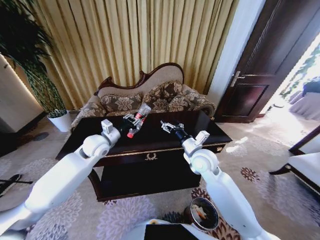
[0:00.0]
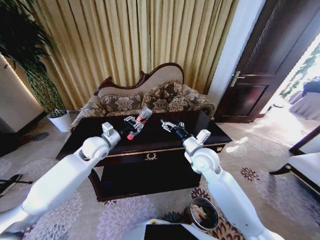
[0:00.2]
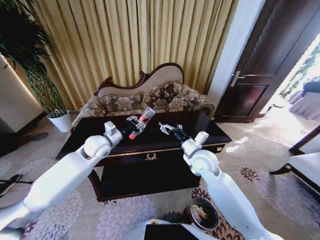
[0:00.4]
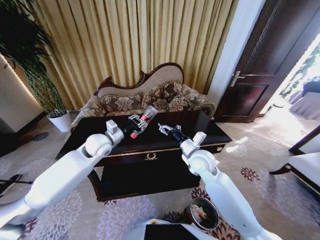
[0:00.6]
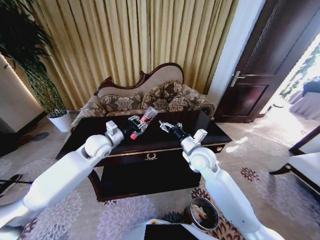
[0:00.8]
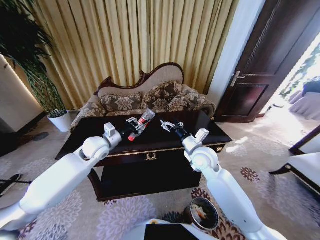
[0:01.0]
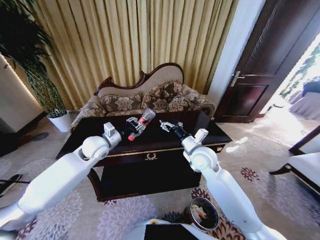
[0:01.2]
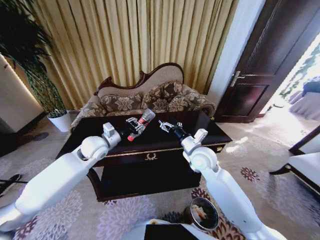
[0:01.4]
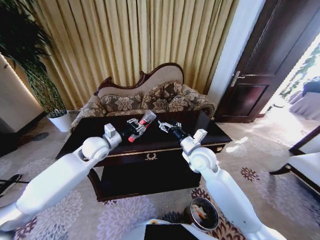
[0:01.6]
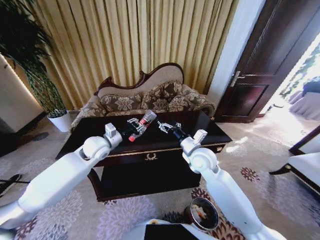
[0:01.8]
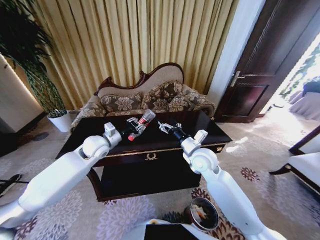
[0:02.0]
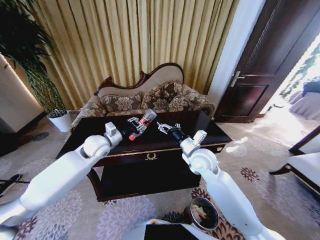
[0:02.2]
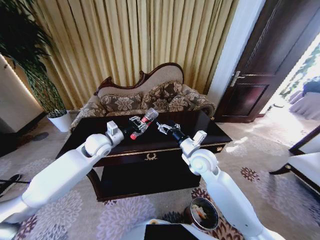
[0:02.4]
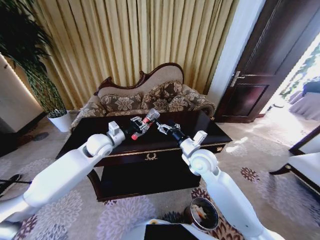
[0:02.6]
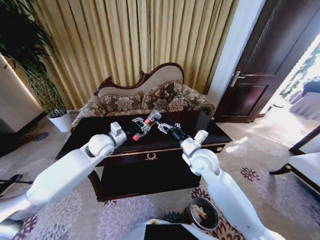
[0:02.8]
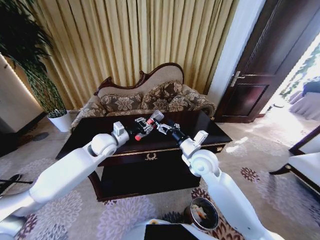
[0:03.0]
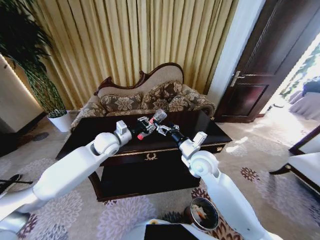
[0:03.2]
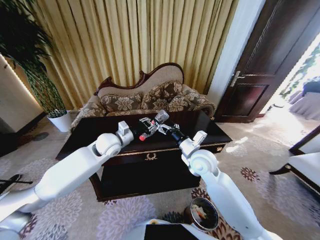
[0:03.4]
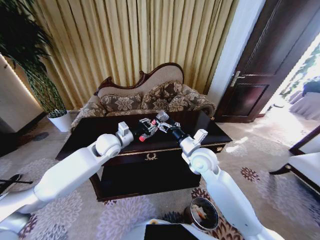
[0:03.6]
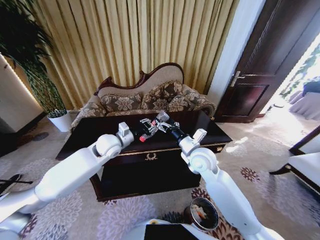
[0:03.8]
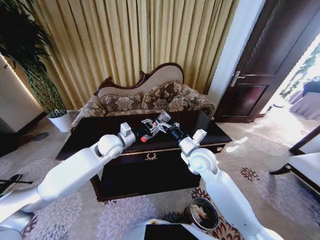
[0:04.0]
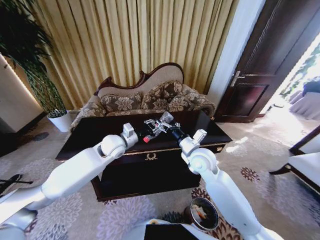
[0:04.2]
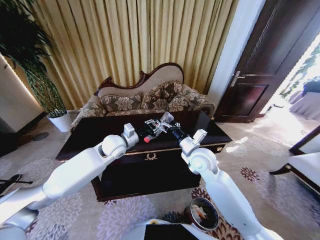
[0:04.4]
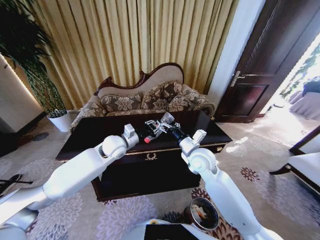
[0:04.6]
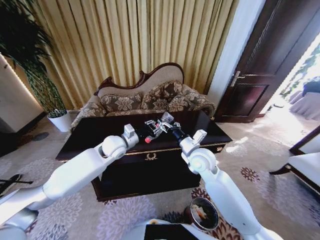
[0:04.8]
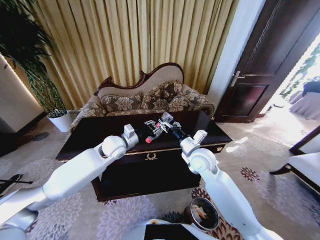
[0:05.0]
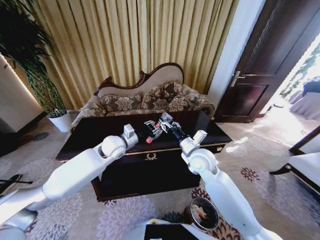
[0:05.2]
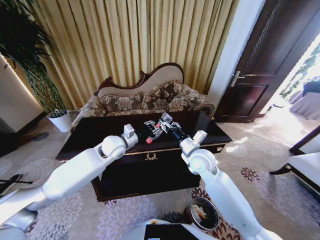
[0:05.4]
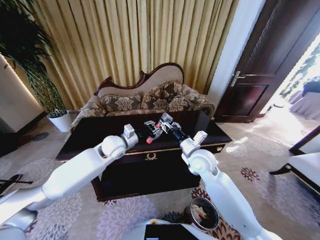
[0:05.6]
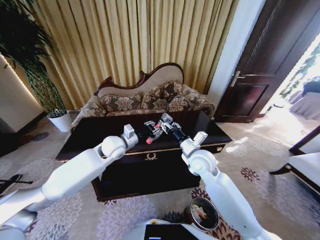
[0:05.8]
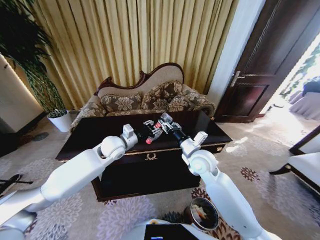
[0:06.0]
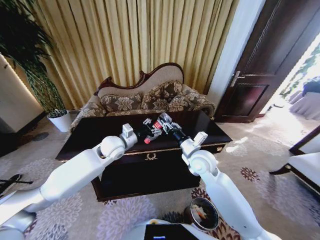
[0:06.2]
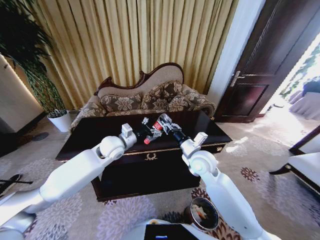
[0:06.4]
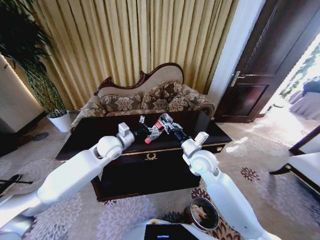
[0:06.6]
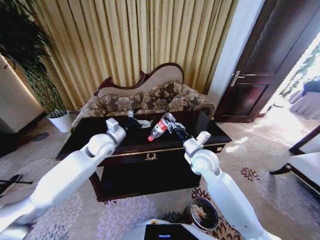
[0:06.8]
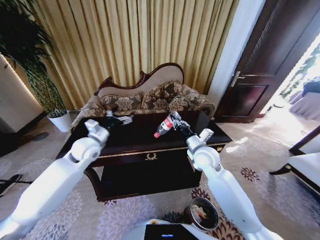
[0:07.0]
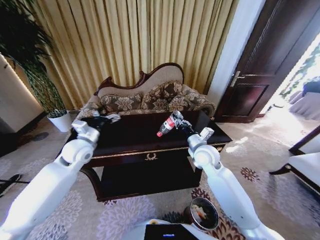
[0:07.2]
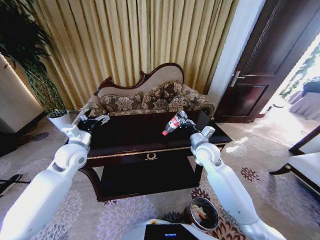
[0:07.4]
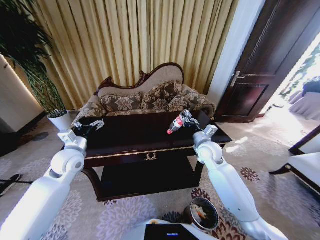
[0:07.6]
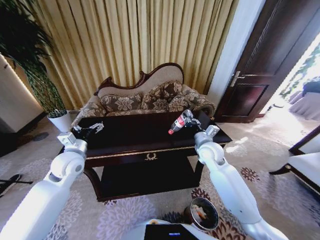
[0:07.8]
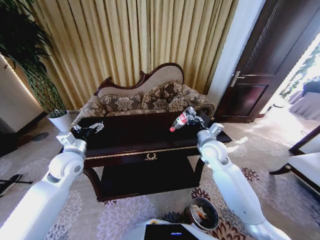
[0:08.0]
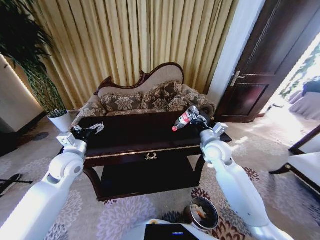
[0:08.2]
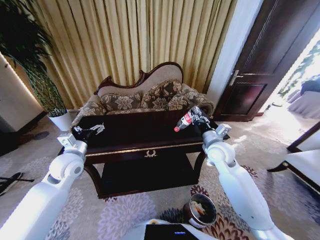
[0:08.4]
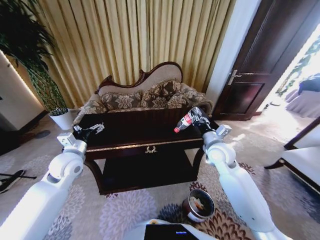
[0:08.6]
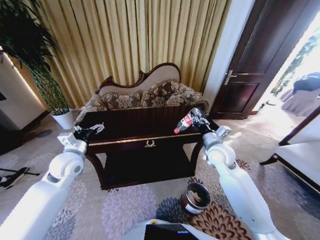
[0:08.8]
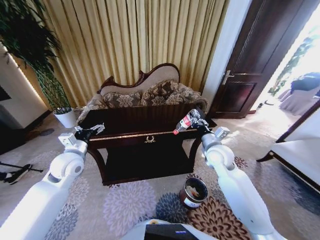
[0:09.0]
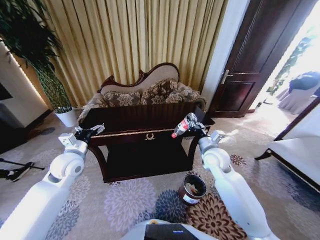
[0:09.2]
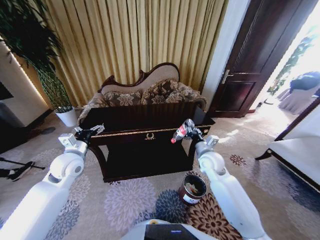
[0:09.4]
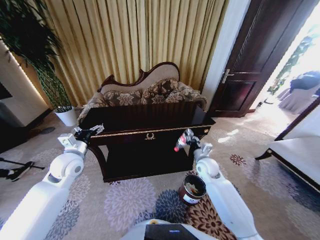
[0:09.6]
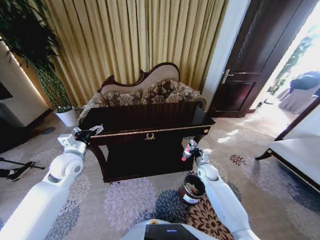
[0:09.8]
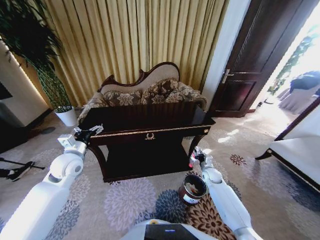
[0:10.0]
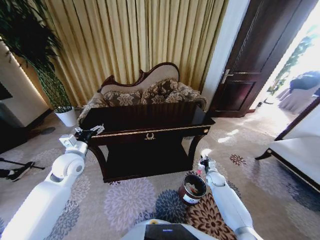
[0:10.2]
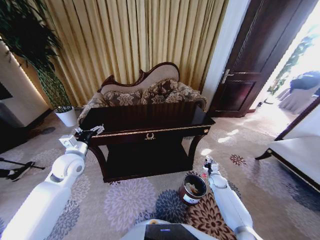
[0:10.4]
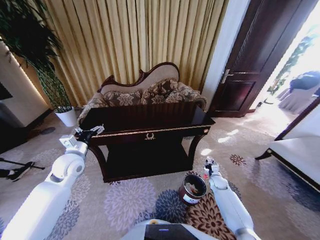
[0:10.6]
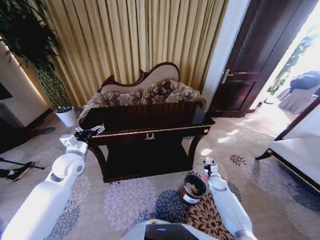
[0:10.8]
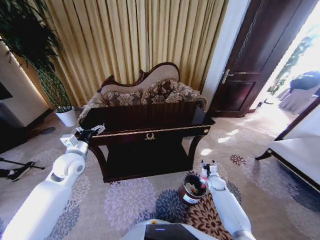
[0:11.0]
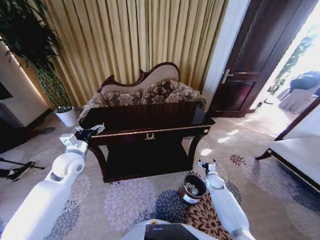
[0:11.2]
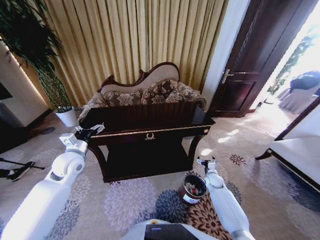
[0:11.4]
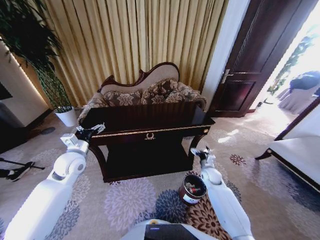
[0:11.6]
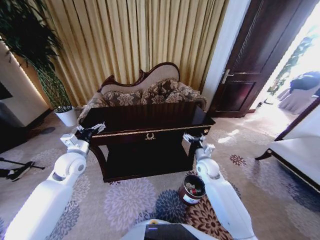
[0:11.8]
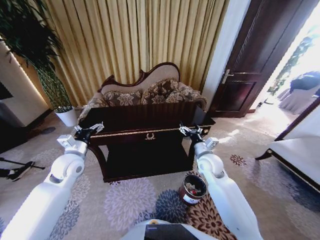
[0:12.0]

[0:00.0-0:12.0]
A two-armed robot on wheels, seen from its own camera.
Task of the whole recording: Move to the front of the table and place the trash on the table into the trash bin.
0:00.0 to 0:03.0: There are only small adjustments of the grippers.
0:03.0 to 0:04.4: The grippers make only small movements.
0:04.4 to 0:06.0: The right gripper closes up.
0:06.0 to 0:07.6: The left gripper goes approximately 15 cm to the left and backward, and opens. The right gripper moves to the right and forward, some 10 cm.
0:09.0 to 0:10.4: The right gripper is displaced downward and to the right by about 35 cm.
0:10.4 to 0:12.0: The right gripper heads upward and to the left, covering approximately 30 cm, and opens its fingers.
